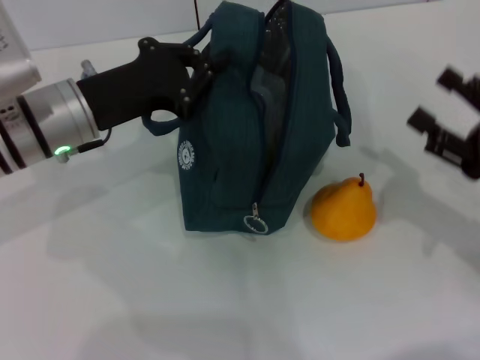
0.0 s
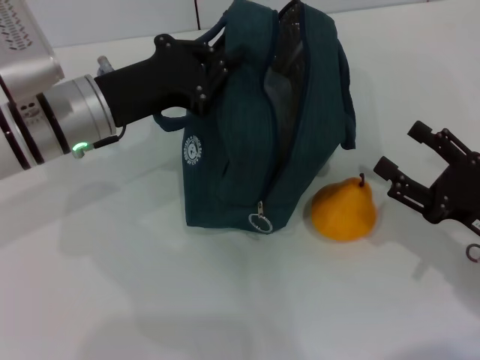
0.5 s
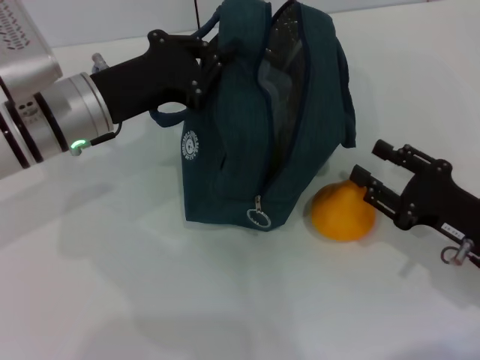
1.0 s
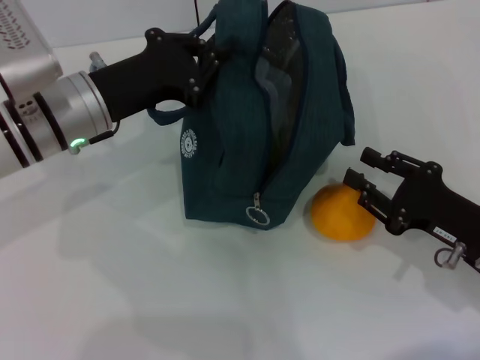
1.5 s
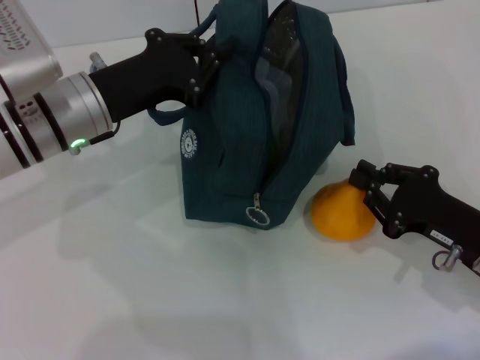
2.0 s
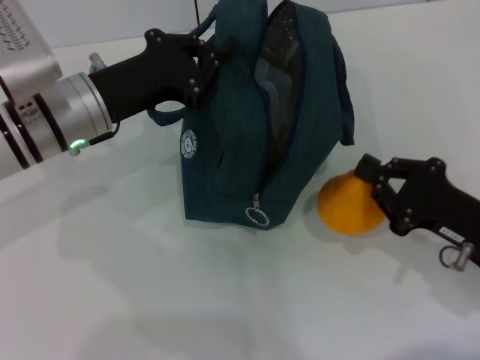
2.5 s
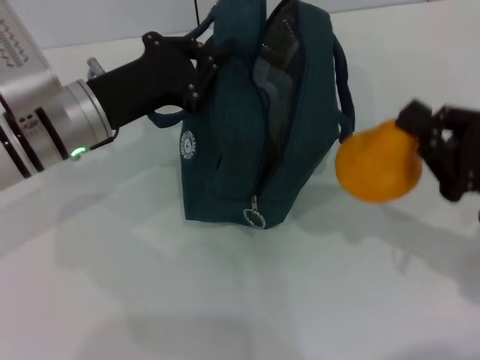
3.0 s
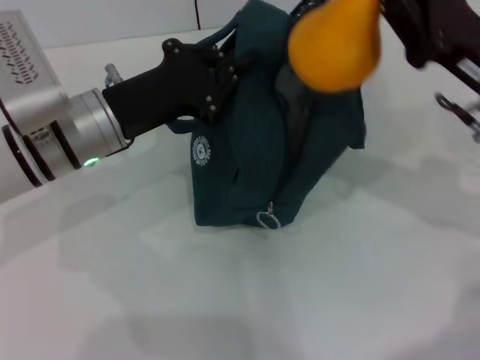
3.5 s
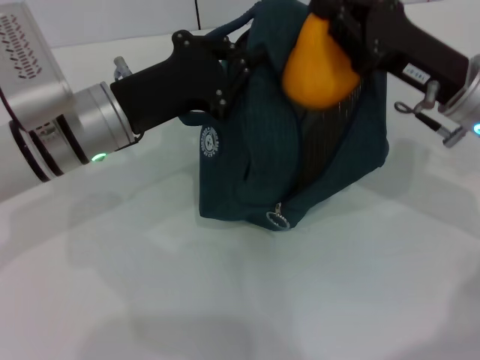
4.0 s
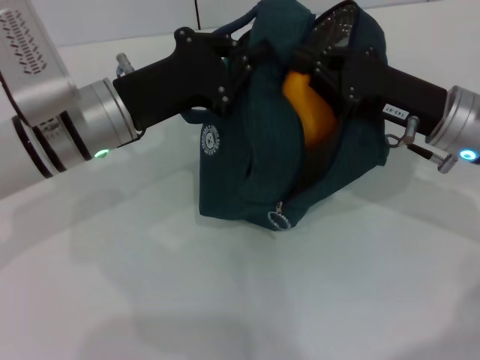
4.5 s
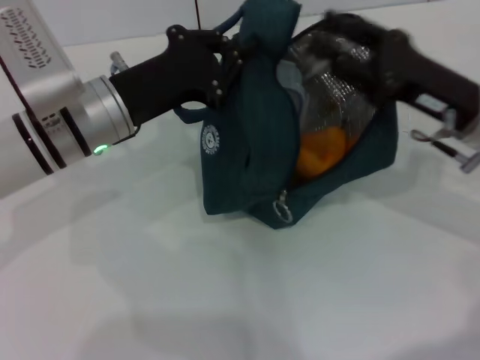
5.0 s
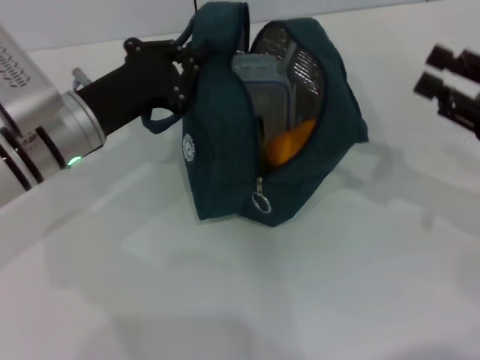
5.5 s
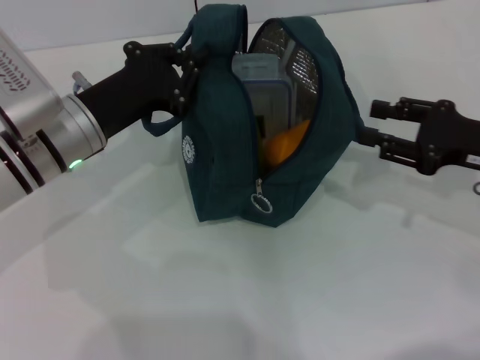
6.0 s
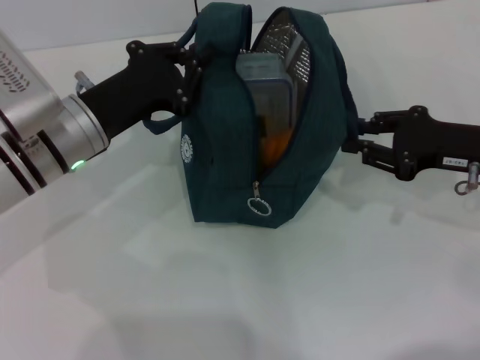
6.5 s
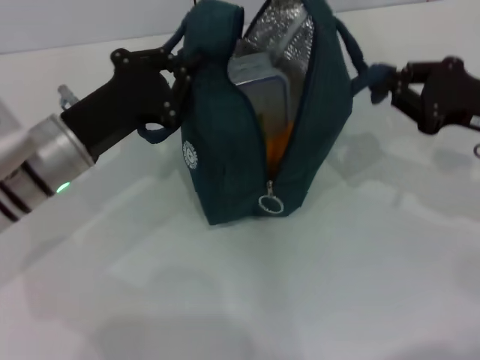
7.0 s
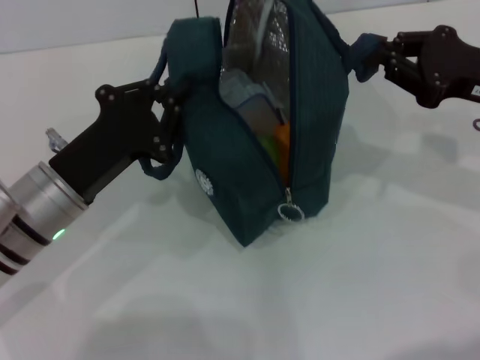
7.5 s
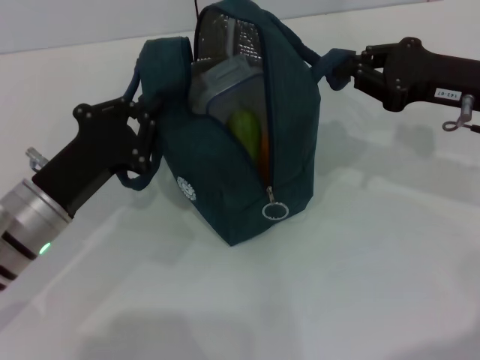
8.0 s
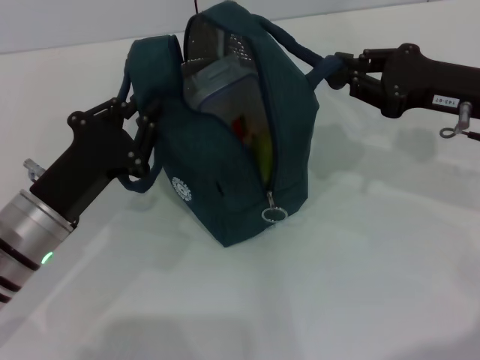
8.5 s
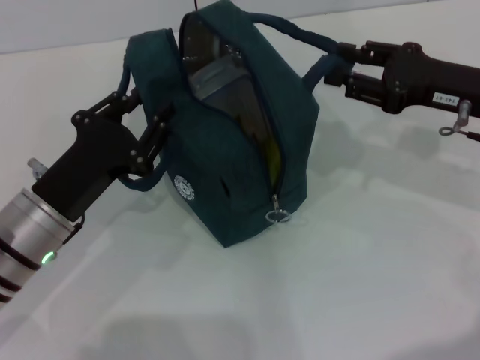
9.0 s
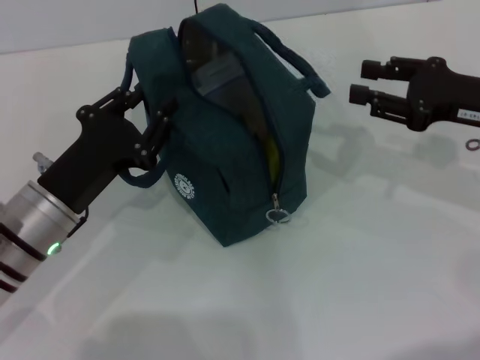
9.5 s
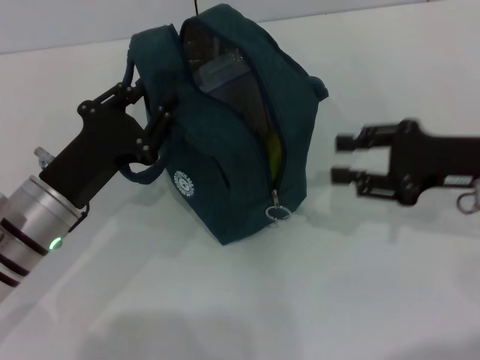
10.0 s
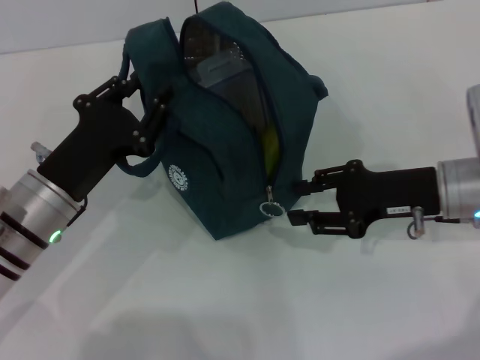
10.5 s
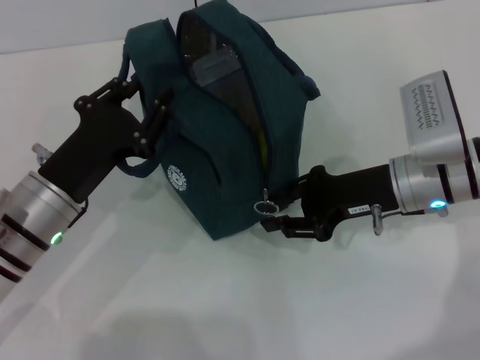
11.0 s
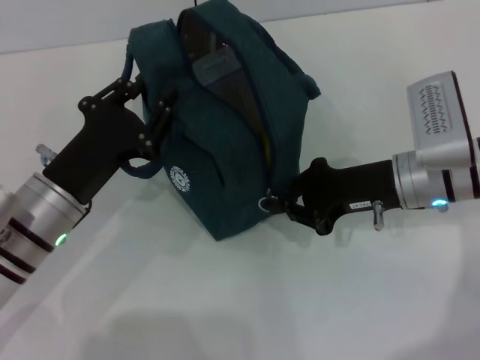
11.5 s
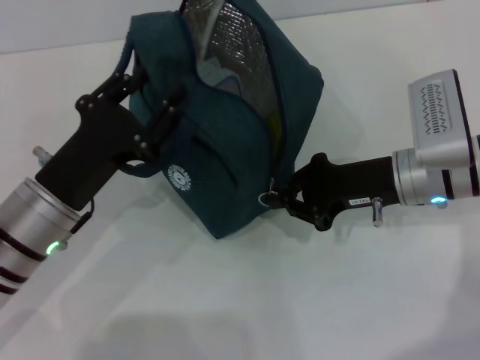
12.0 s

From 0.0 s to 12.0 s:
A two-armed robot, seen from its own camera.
Step, from 0.0 s to 2.0 s: Grab the pear with your right hand.
Step, from 2.5 s to 5.0 s: Secure the lunch bag with your left hand.
Step, from 5.5 s to 9.0 s: Hold the lunch bag with your right hand.
From 0.0 s to 2.0 s: The right gripper moves some 5 cm, and closes its fingers.
From 2.0 s to 4.0 s: The right gripper moves forward and upward, approximately 15 cm.
From 4.0 s to 6.0 s: The right gripper shifts some 5 cm to the right, and opens up.
From 6.0 s to 8.0 s: The right gripper changes place by some 5 cm, and closes; the left gripper shifts about 5 cm backward.
From 8.0 s to 10.0 s: The right gripper moves some 5 cm, and opens up.
From 10.0 s to 12.0 s: The right gripper moves to the left, some 10 cm, and closes.

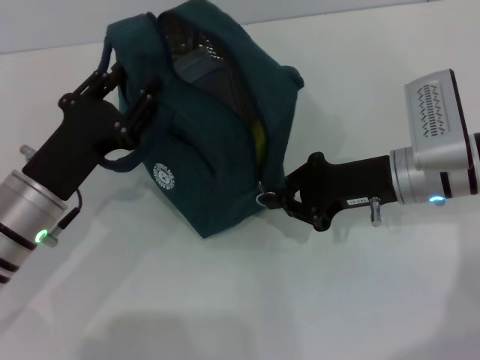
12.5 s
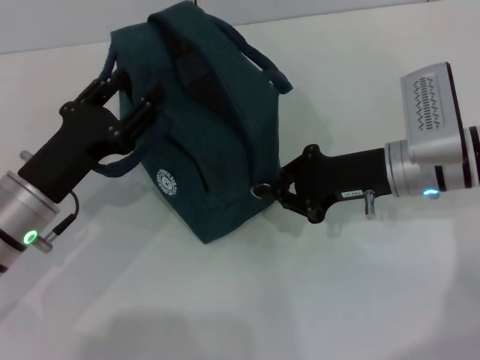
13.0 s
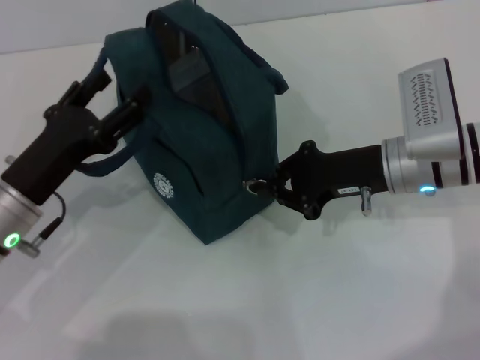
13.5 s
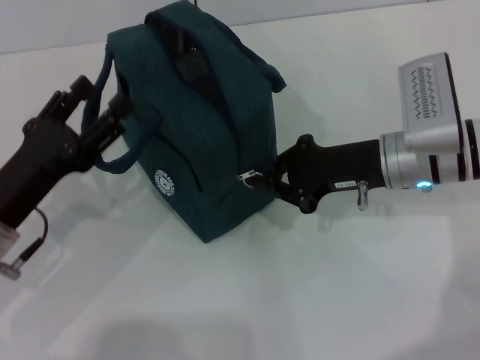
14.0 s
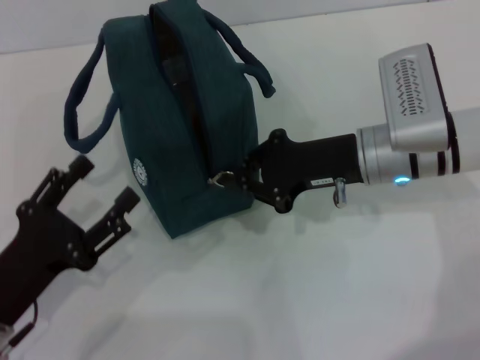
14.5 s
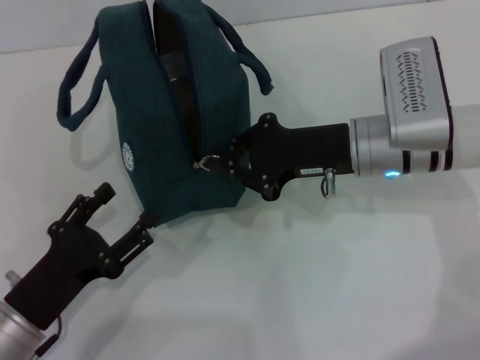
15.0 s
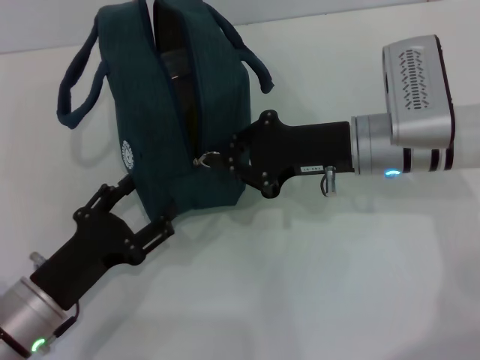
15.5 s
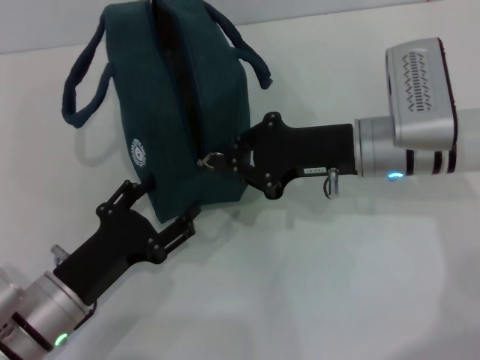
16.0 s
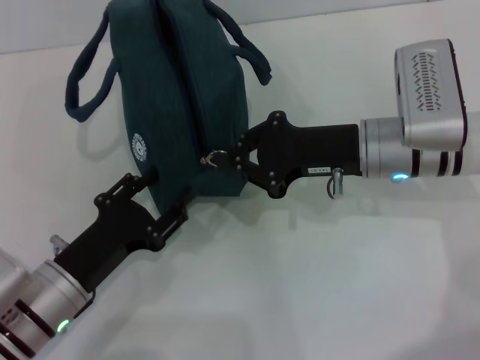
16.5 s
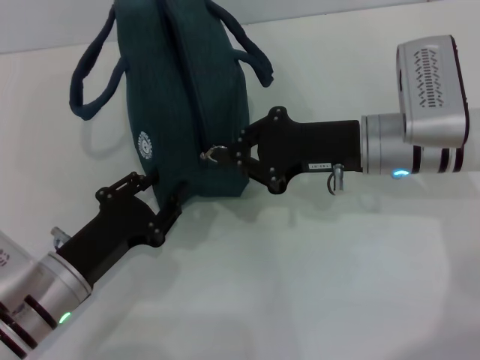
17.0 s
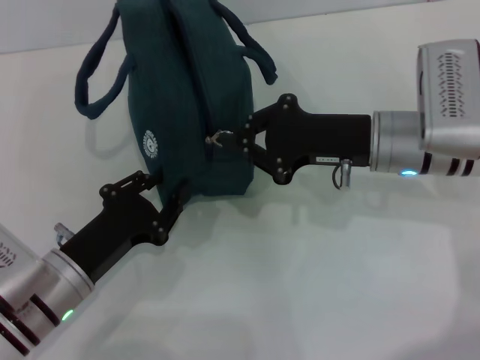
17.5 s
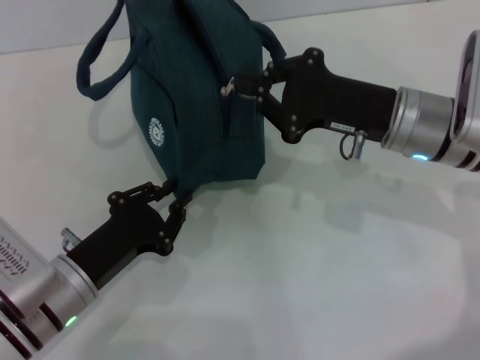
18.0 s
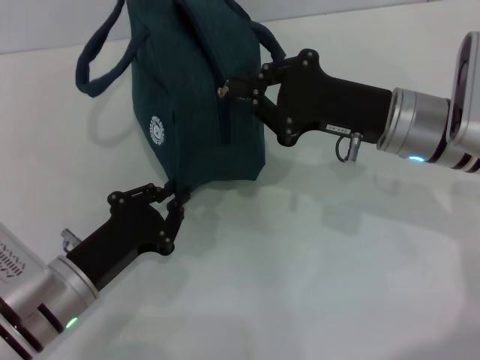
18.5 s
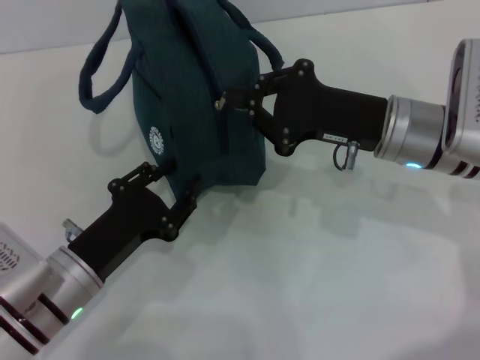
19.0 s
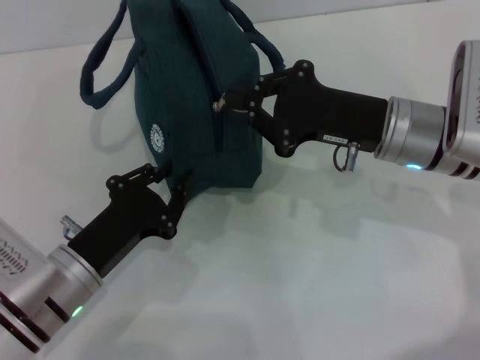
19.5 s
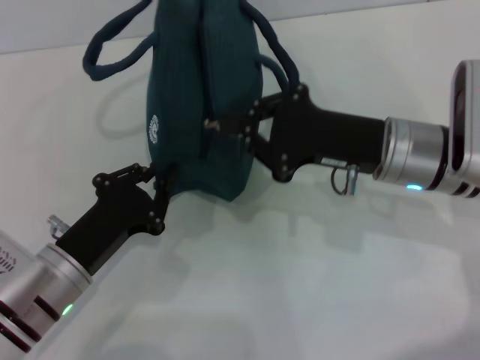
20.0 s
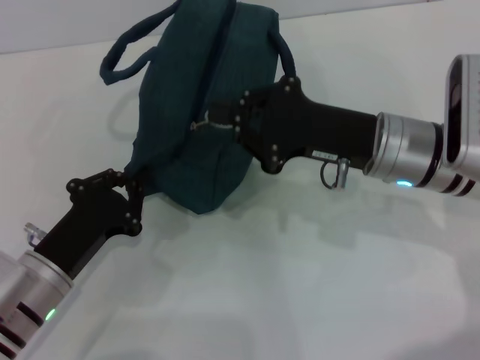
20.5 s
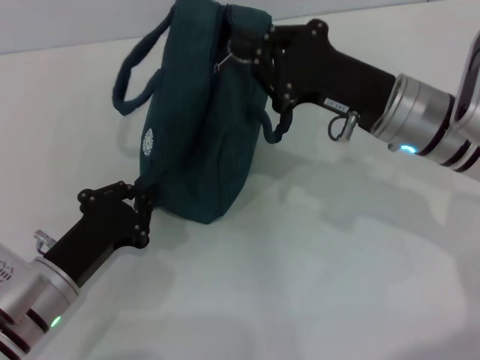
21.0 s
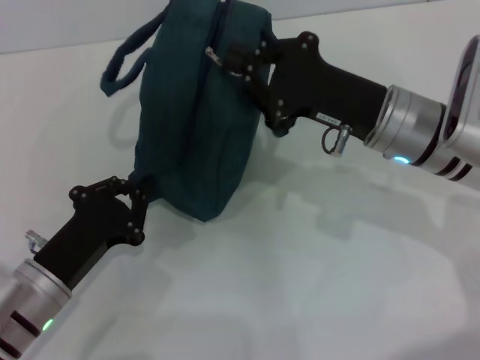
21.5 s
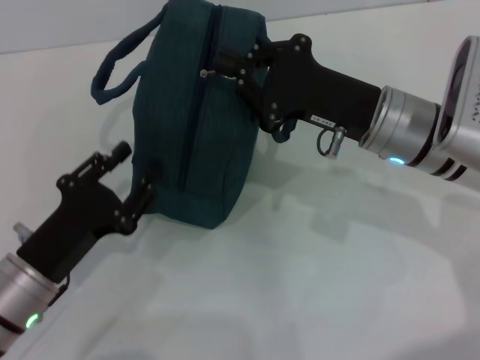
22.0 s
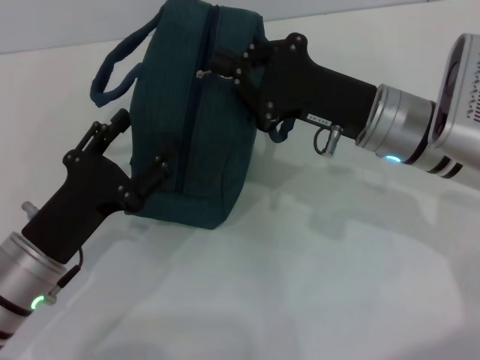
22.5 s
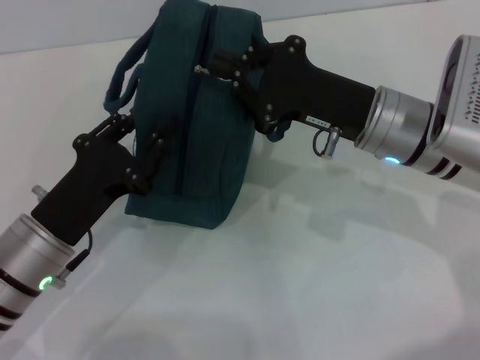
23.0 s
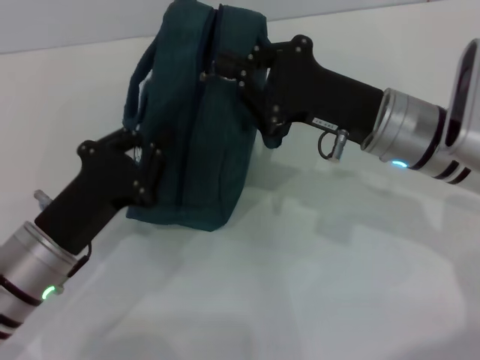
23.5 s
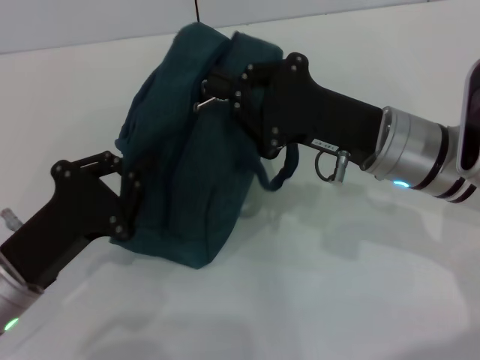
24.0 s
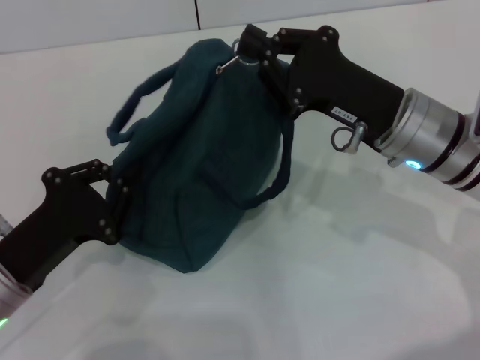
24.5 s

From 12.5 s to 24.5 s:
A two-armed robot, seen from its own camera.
From 12.5 s to 14.5 s: The left gripper goes about 10 cm backward and to the left, and opens its fingers.
From 14.5 s to 16.5 s: The left gripper heads to the right, covering approximately 5 cm.
From 16.5 s to 18.5 s: The left gripper closes its fingers.
From 20.5 s to 22.5 s: The left gripper opens its fingers.
From 22.5 s to 24.5 s: The left gripper closes its fingers.

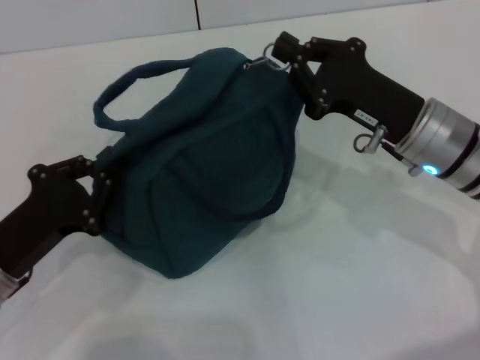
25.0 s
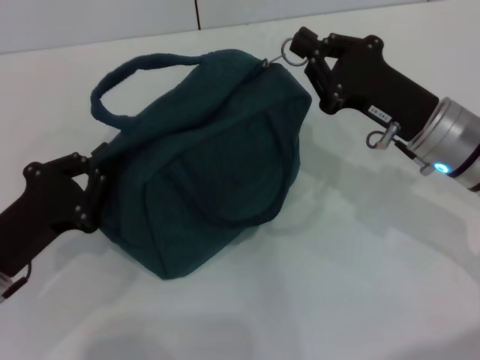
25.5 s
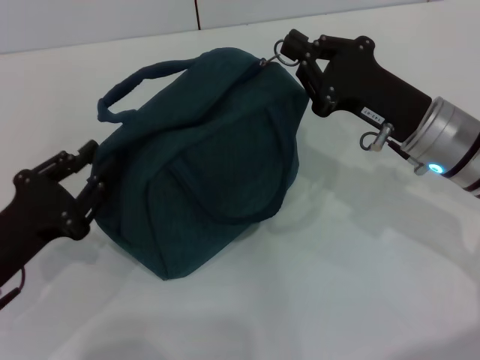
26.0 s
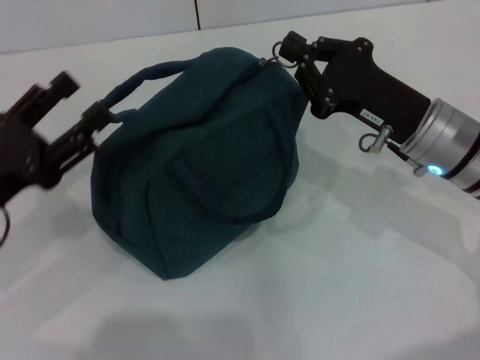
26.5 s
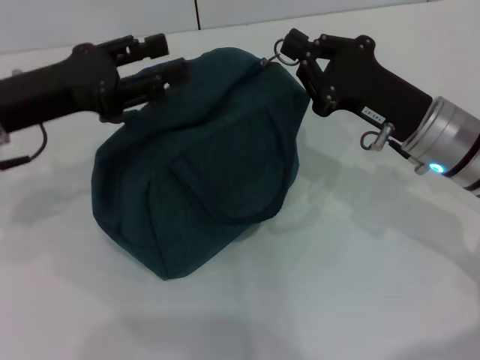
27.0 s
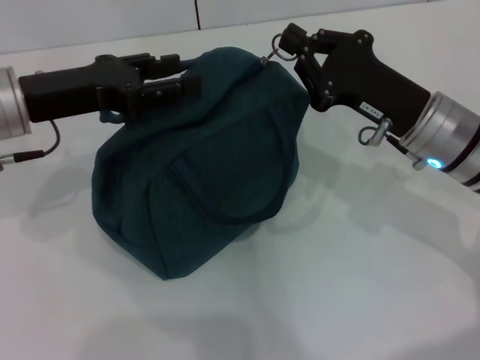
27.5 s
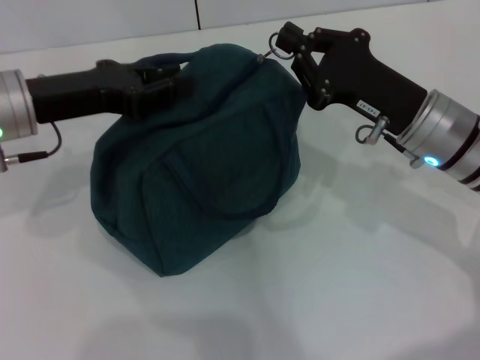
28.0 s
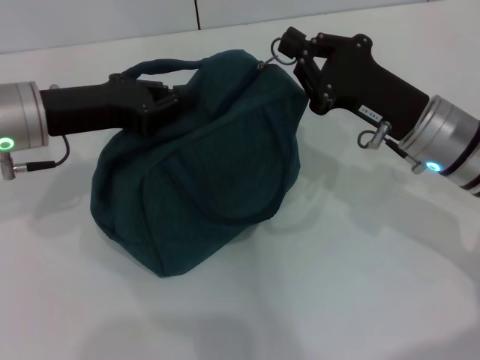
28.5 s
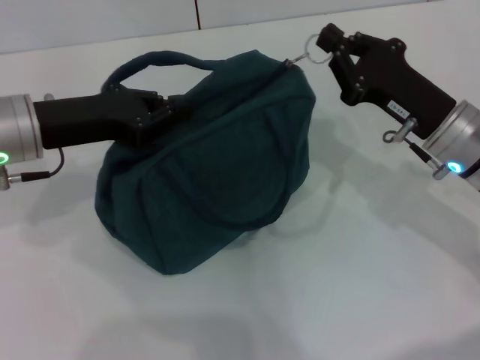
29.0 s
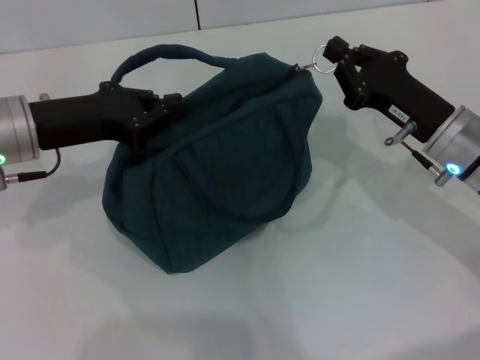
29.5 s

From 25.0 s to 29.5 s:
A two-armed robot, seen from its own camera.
From 25.0 s to 27.0 s: The left gripper is displaced upward and forward by about 15 cm, and opens its fingers.
From 27.0 s to 29.5 s: The left gripper closes.
